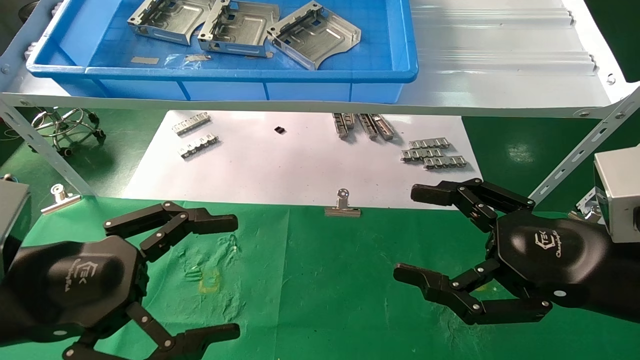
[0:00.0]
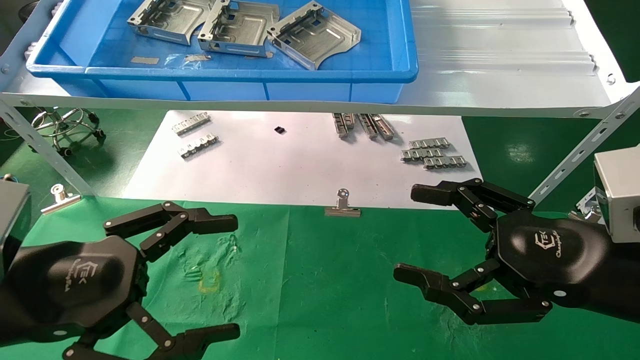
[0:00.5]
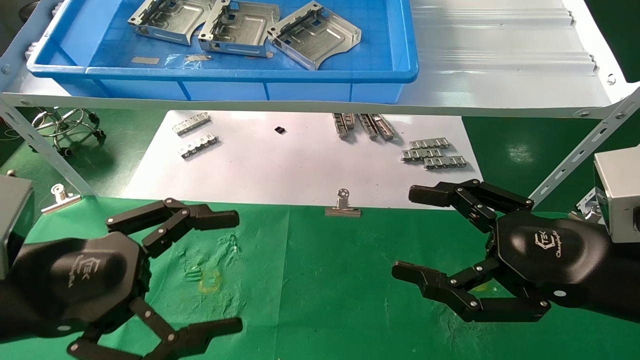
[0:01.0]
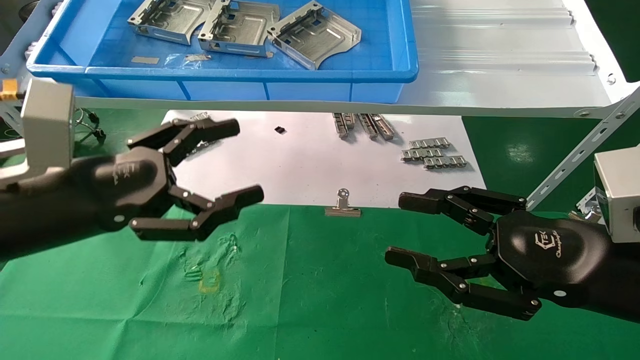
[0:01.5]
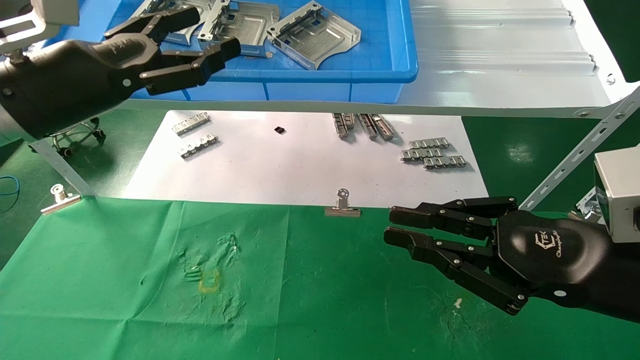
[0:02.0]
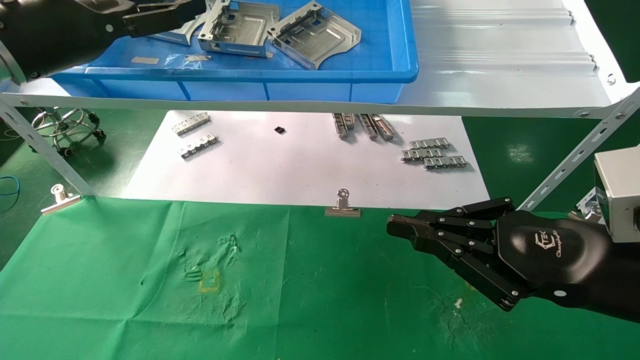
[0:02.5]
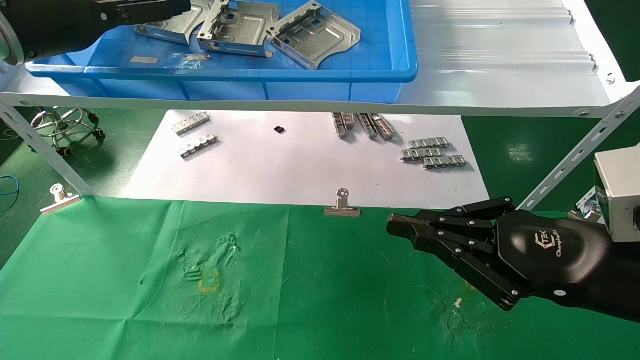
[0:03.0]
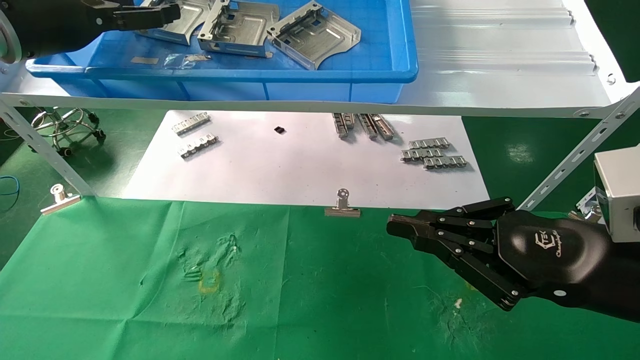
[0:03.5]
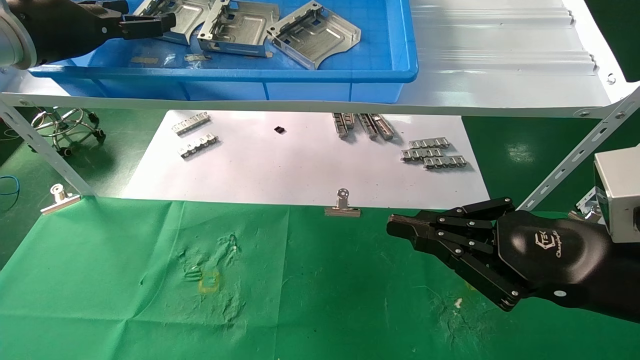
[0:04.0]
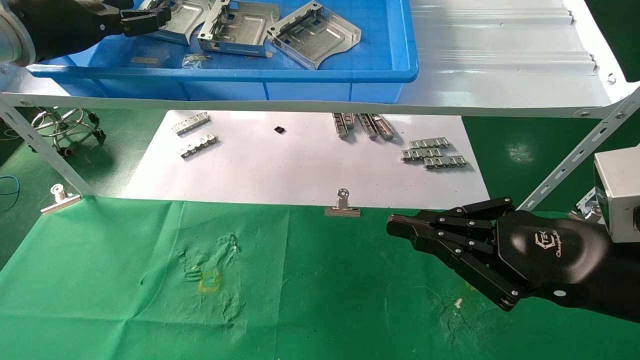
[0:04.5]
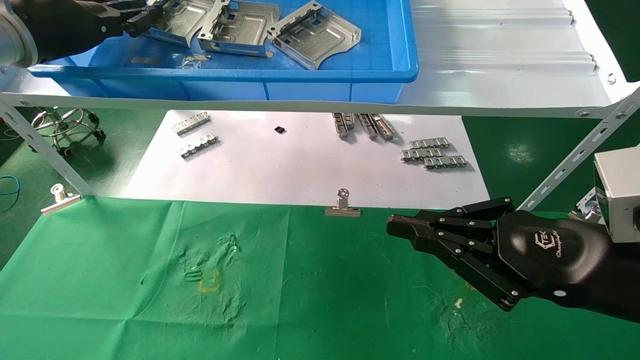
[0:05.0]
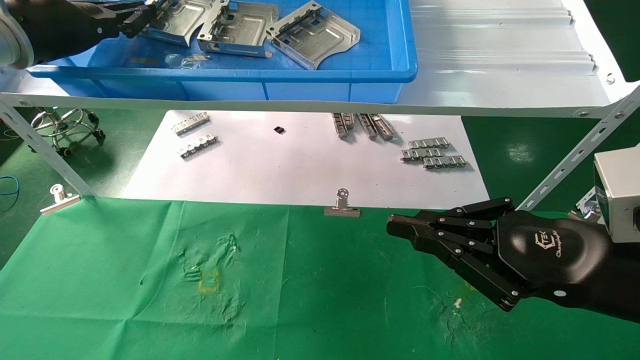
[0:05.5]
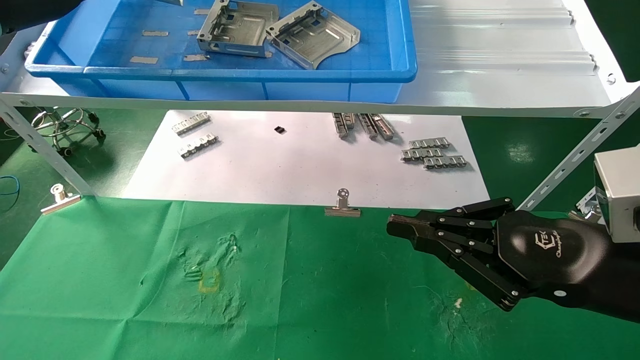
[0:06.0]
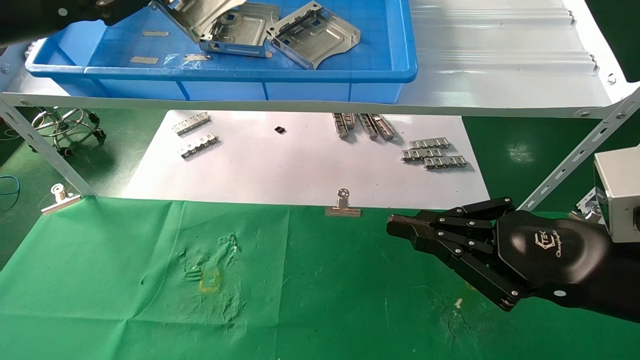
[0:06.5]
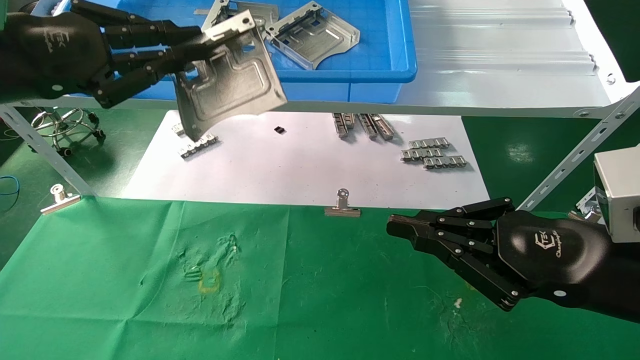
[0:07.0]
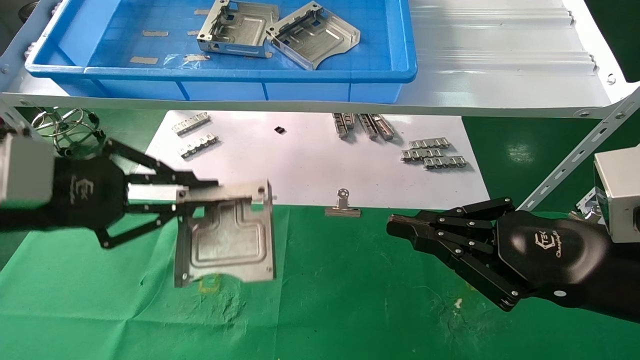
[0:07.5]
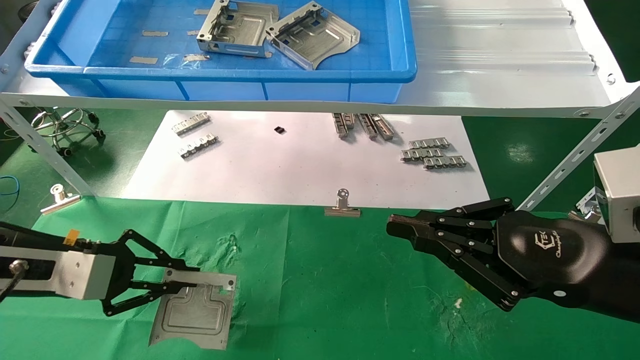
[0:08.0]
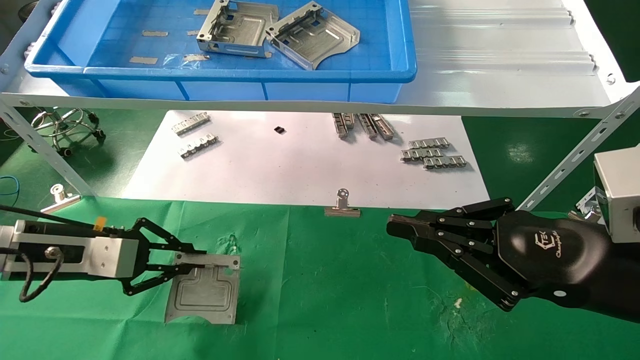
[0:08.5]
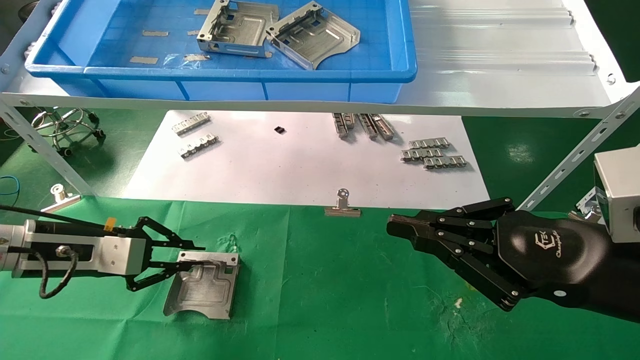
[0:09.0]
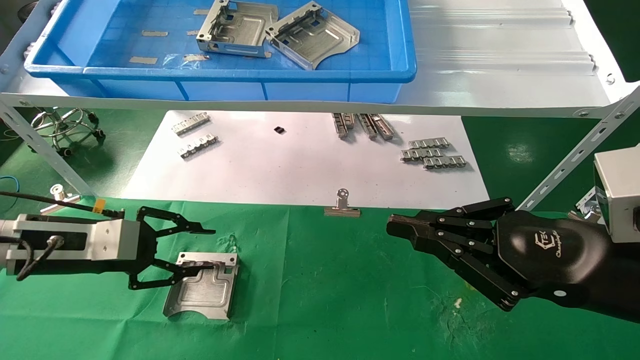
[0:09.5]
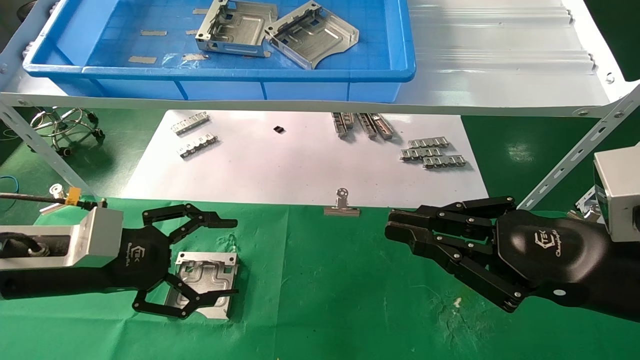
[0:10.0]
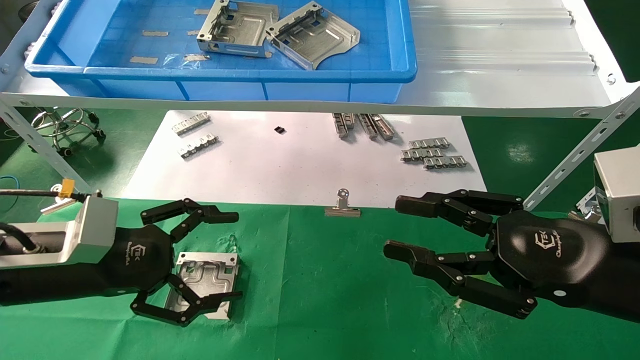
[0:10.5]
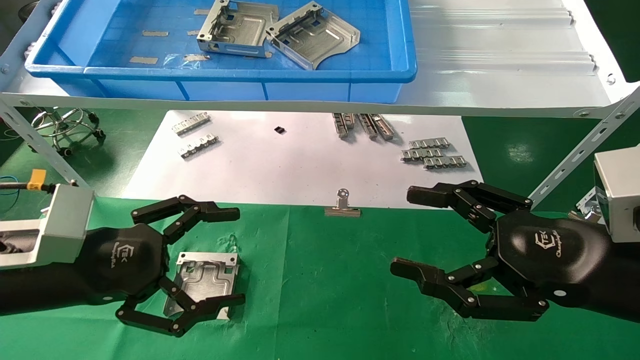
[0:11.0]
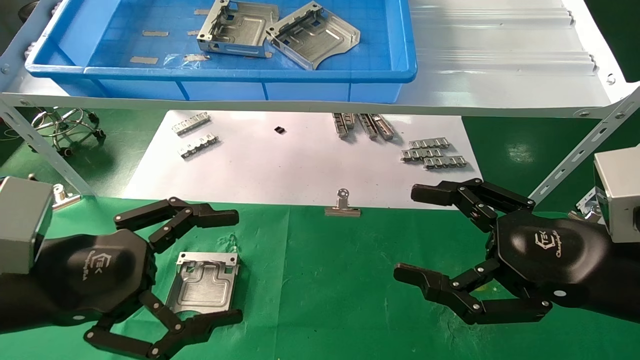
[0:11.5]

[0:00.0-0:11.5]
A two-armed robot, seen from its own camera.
Task of the whole recording: use the mechanical arm to pick up the parts and place them on the table.
Step, 0:01.5 to 0:05.0: Pick up the hard drive bracket from the feeding area.
Step, 0:05.5 to 0:09.0: Place the hard drive bracket into the box.
0:00.0 to 0:02.0: The left gripper shifts approximately 20 cm forward and upward. Meanwhile the right gripper closes up.
0:02.0 to 0:04.0: The left gripper travels forward, upward and to the left by roughly 15 cm.
0:04.0 to 0:06.0: The left gripper closes.
0:06.0 to 0:07.5: The left gripper goes approximately 20 cm downward and backward.
0:07.5 to 0:09.5: The left gripper travels downward and forward by about 10 cm.
0:09.5 to 0:11.5: The right gripper opens up. The left gripper heads backward and to the right, covering approximately 15 cm, and opens its fingers.

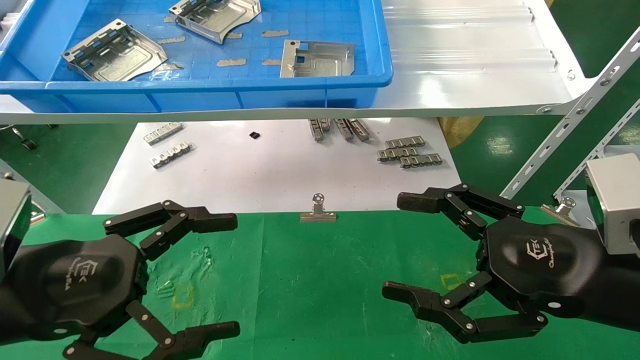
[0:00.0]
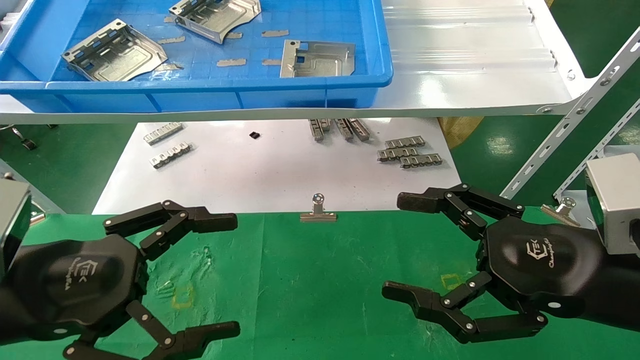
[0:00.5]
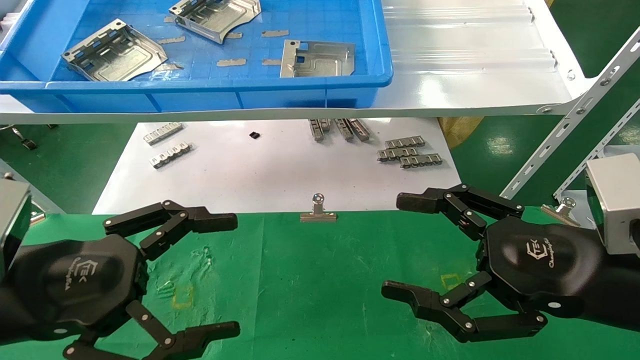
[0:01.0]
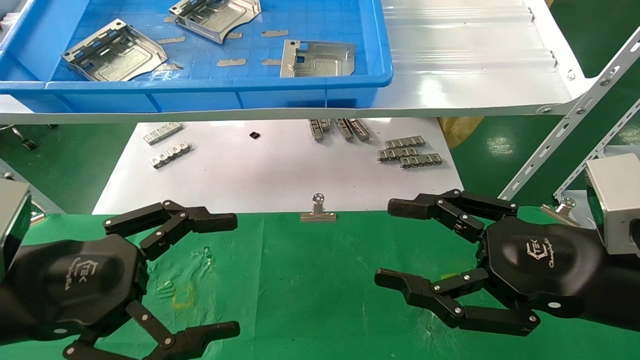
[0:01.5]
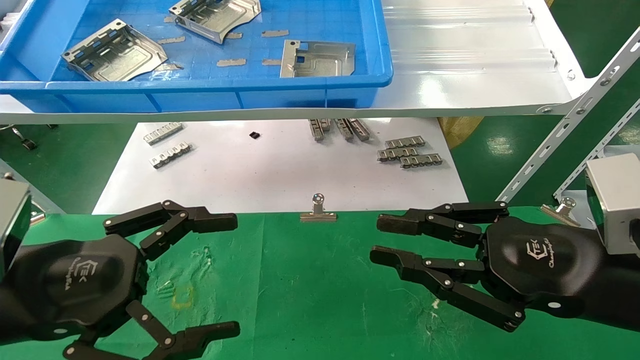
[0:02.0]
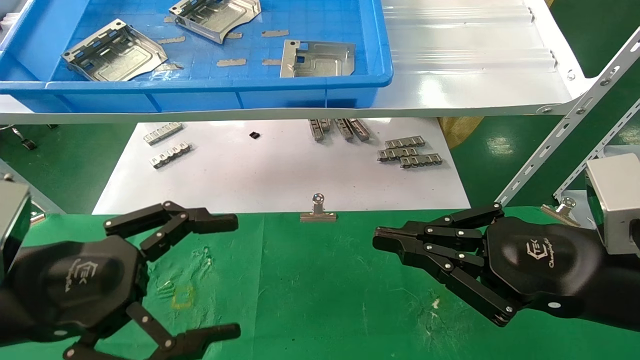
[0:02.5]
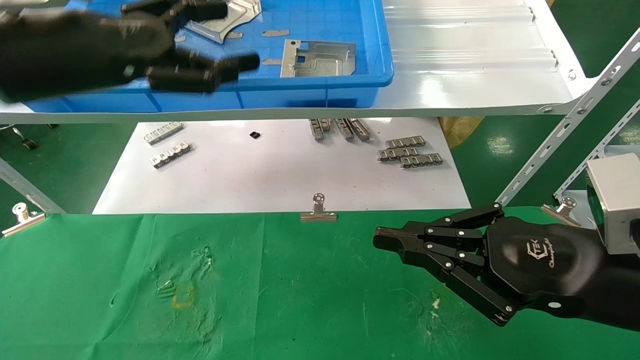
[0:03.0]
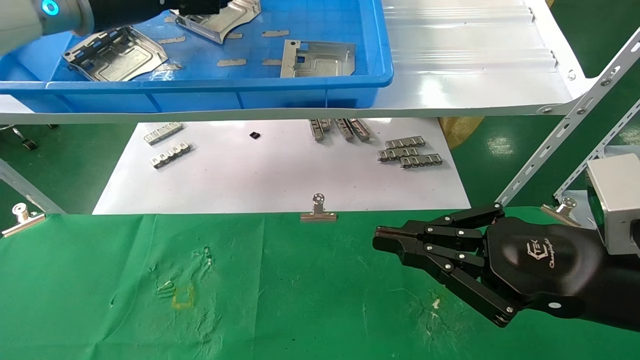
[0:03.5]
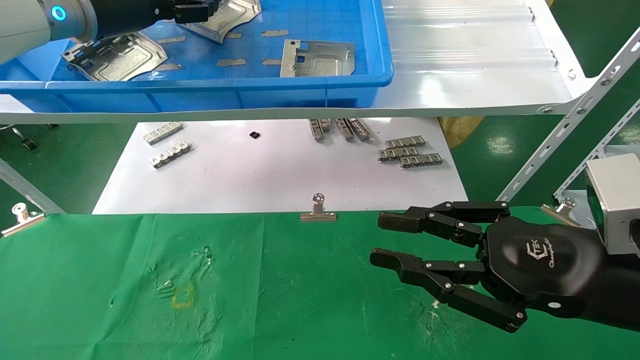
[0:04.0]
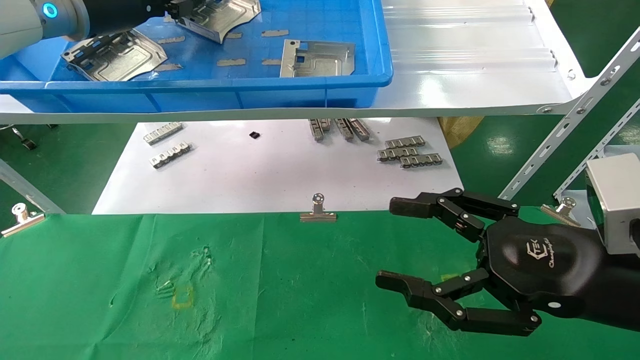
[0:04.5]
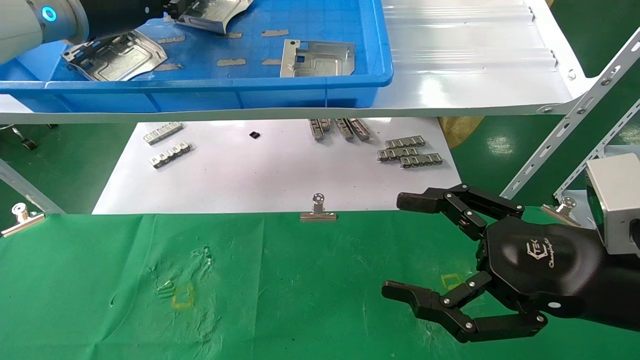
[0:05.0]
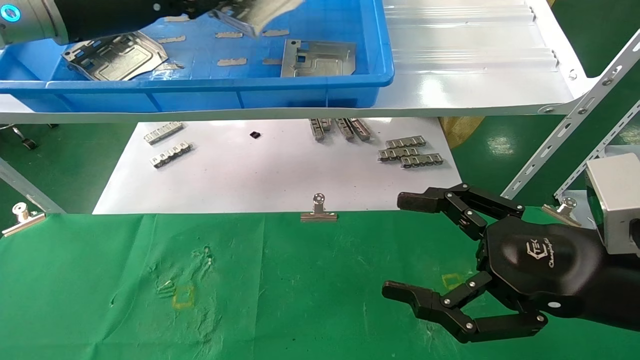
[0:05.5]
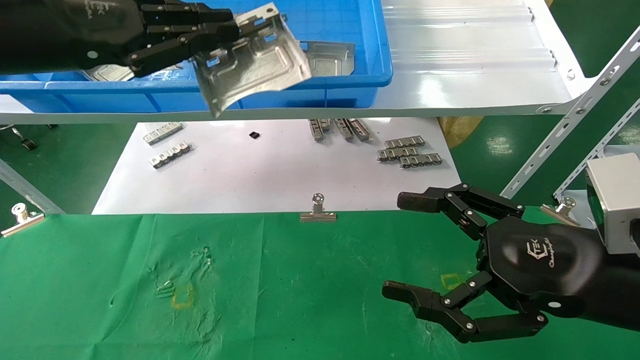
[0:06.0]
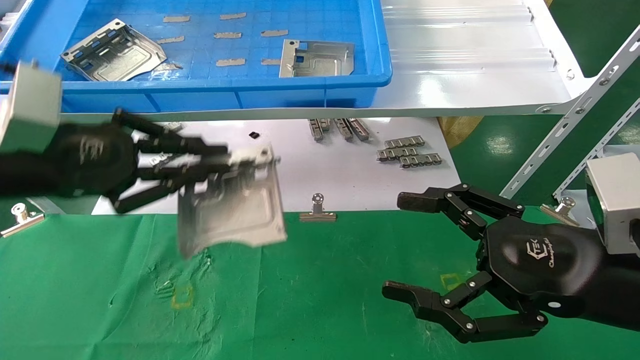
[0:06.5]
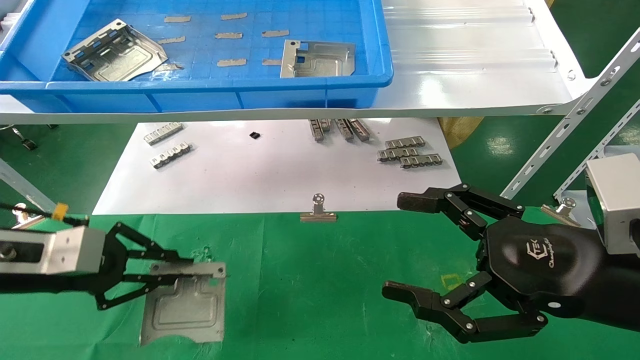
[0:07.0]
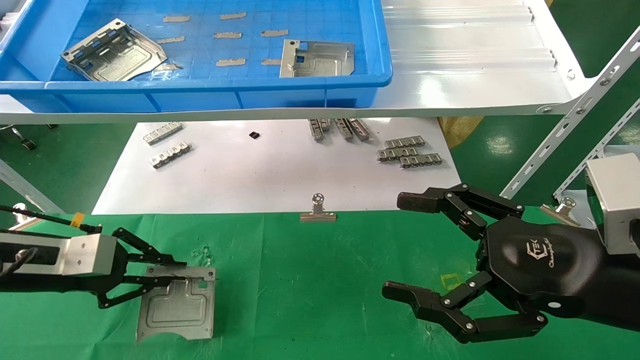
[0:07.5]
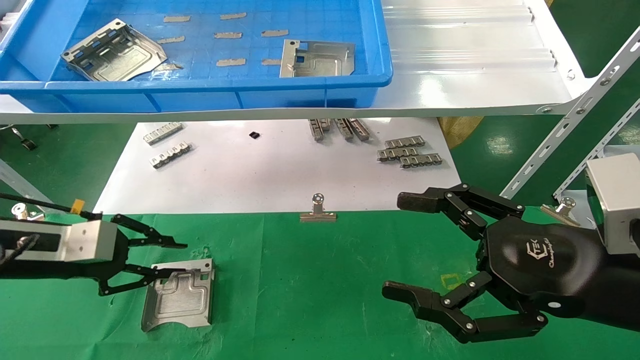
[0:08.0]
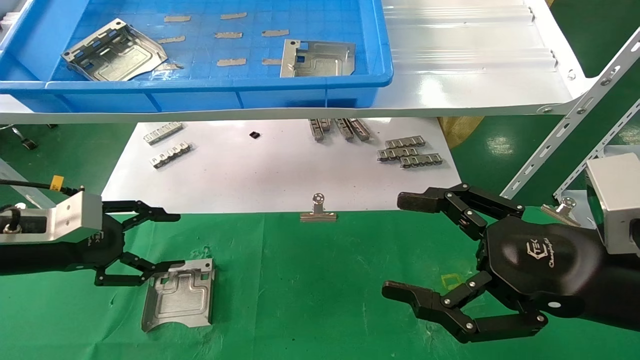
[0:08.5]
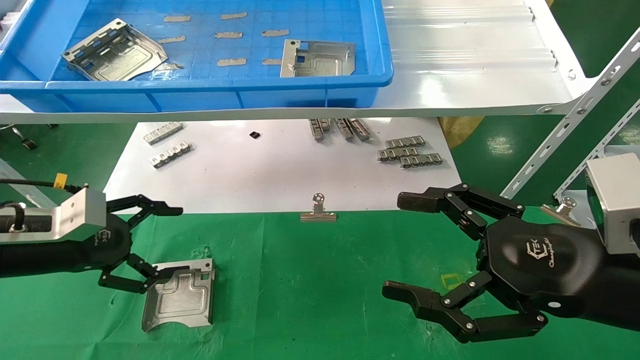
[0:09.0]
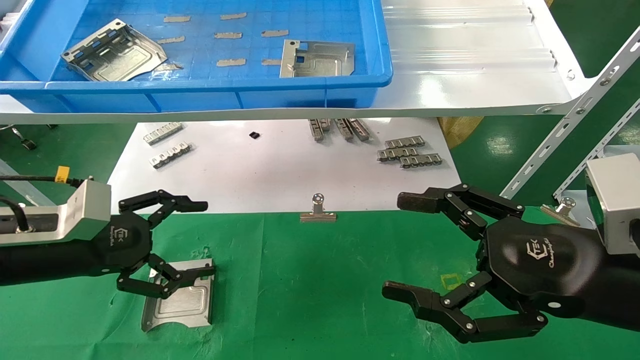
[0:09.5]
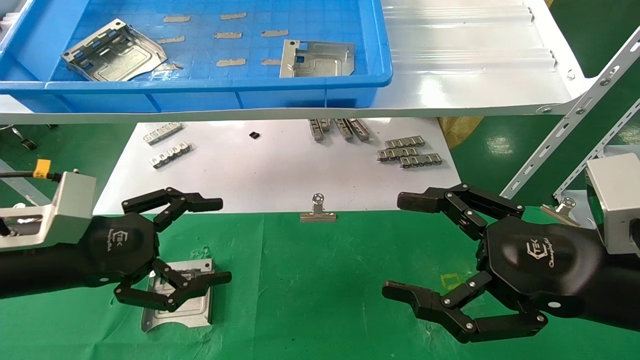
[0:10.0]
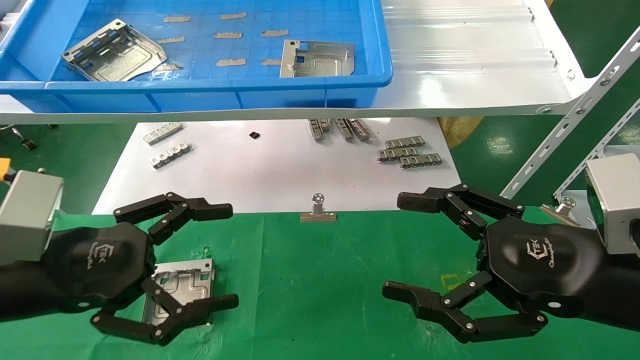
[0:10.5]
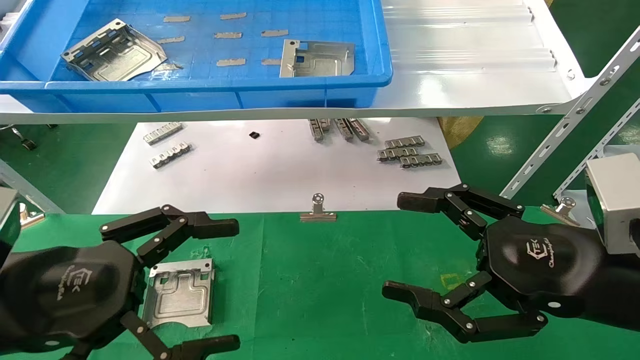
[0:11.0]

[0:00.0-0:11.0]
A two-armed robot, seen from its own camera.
Task of the whole recording: use the mechanical arm to pick up the parts and place them on the table.
Step, 0:03.0 to 0:05.0: Pick up the hard drive bracket from the feeding area.
Step, 0:05.5 to 0:07.5: Place the hard drive bracket into the box.
0:00.0 to 0:02.0: The right gripper closes up.
0:02.0 to 0:03.5: The left gripper goes roughly 35 cm upward and forward, while the right gripper closes up.
0:03.5 to 0:05.5: The left gripper closes its fingers; the right gripper opens its fingers.
0:05.5 to 0:07.5: The left gripper is displaced downward and to the left by some 30 cm.
0:07.5 to 0:09.0: The left gripper opens.
0:09.0 to 0:11.0: The left gripper heads backward and to the right, covering roughly 15 cm.
